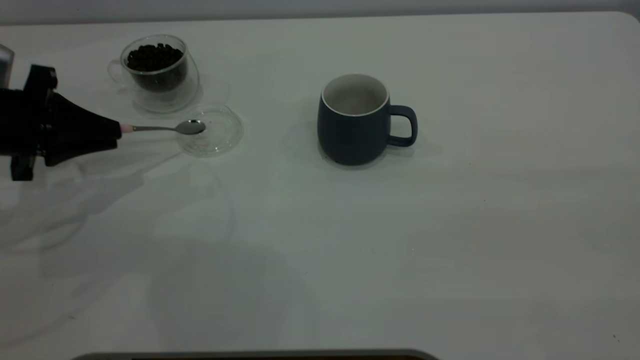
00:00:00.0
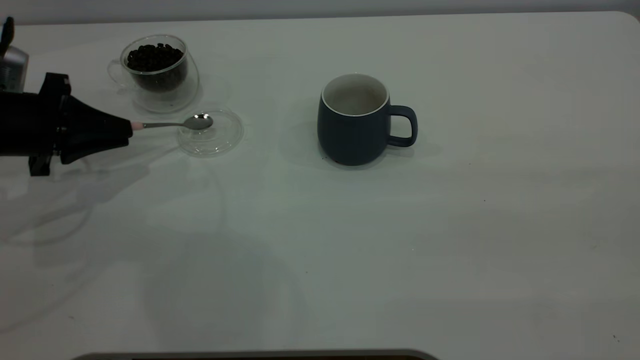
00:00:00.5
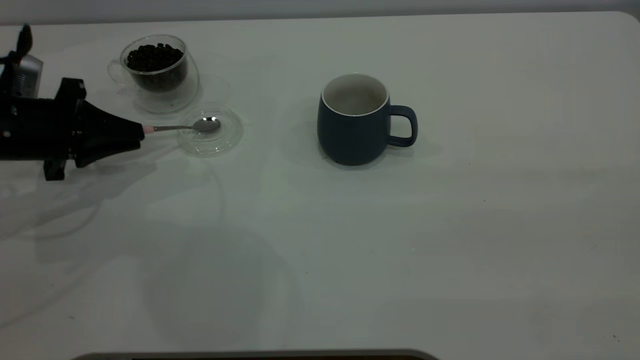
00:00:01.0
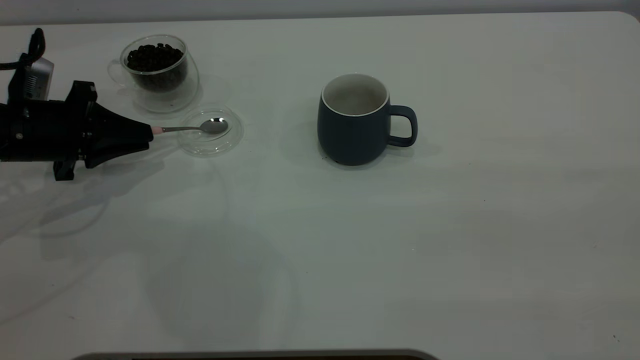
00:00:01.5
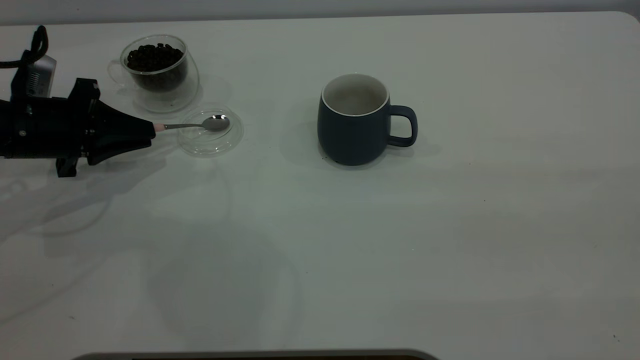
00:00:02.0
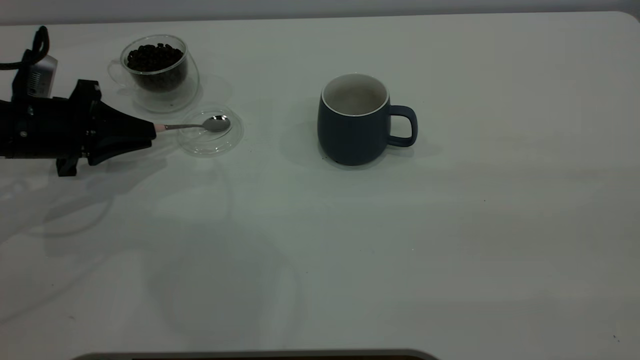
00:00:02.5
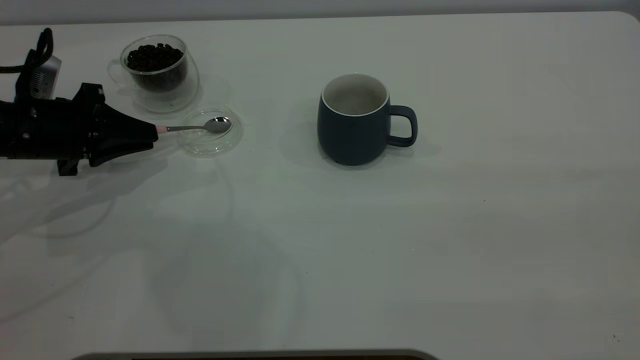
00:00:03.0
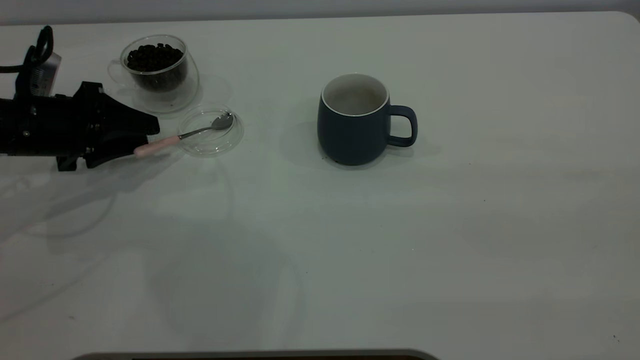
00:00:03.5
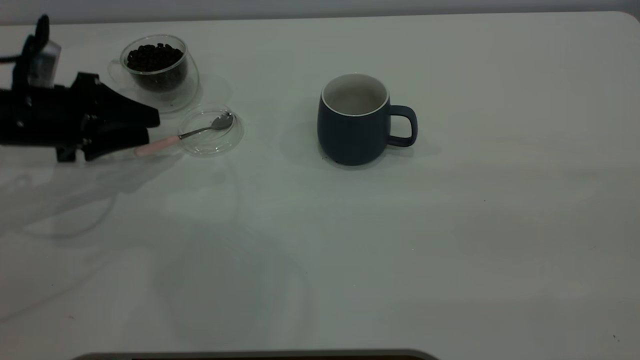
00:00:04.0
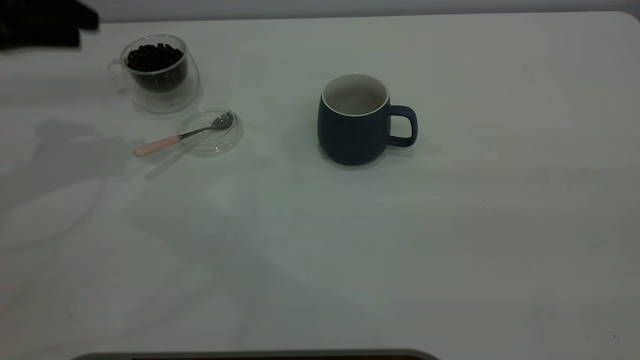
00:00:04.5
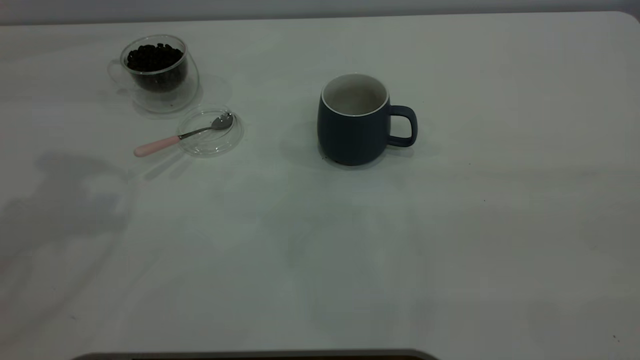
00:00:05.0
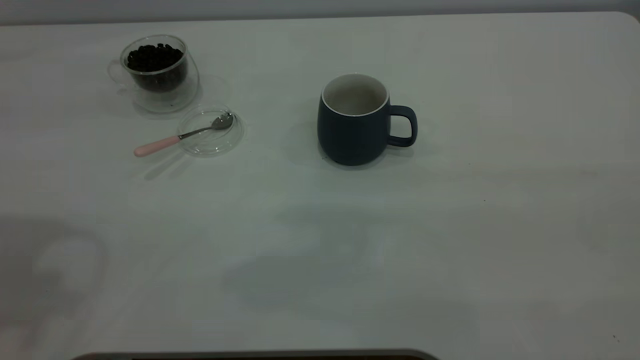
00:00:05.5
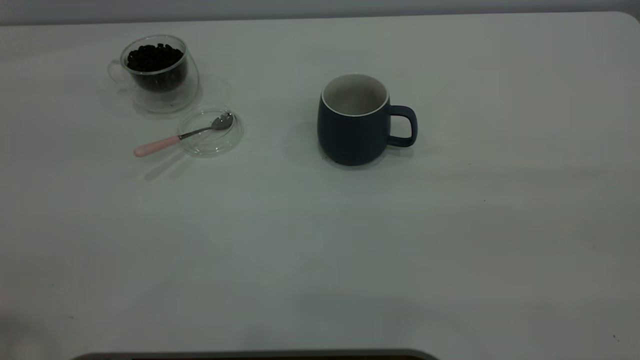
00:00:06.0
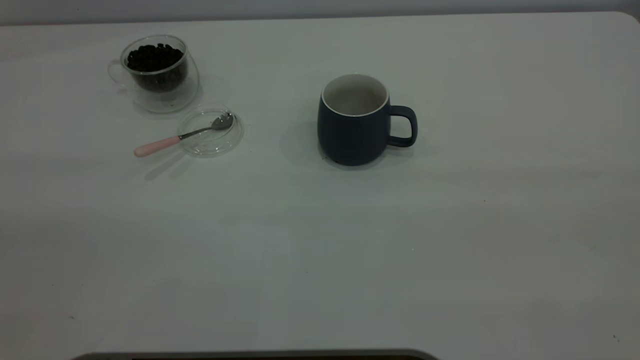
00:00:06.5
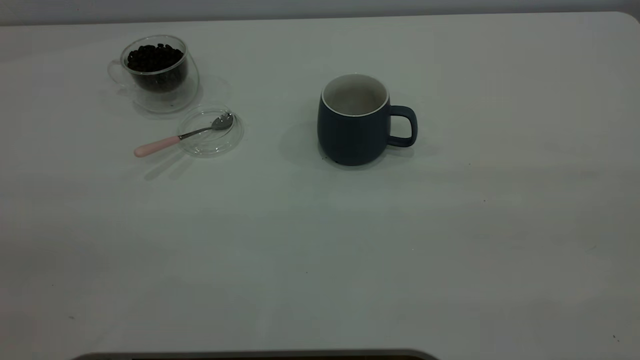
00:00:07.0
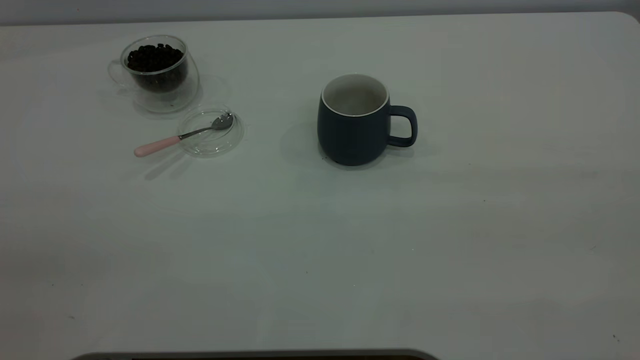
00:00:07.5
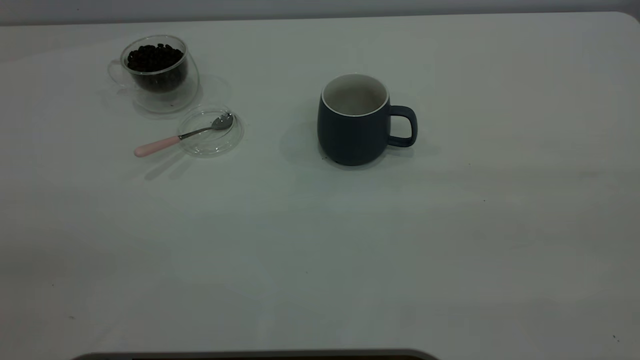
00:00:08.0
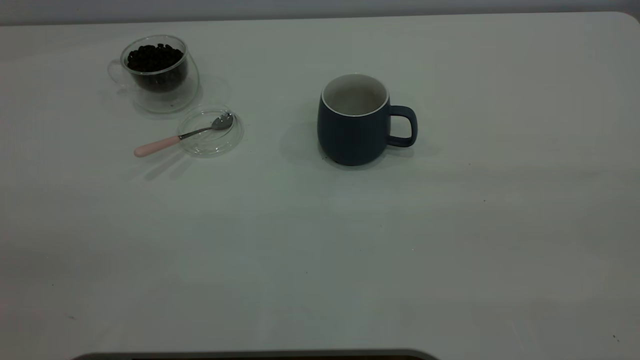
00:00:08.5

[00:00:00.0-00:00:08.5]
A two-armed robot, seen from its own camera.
Task of the whole recording: the right gripper place the grey cup in the center of the table, the left gripper take the pink spoon from the cup lid and scoop out the coffee beans from the coffee cup and put them into the grey cup, the left gripper put the spoon back into the cup lid.
Step, 00:00:00.0 to 00:00:04.0: Place the spoon back in its original place.
00:00:00.0 to 00:00:02.0: The grippers make only small movements.
00:00:02.0 to 00:00:04.0: The left gripper opens.
00:00:04.0 to 00:00:06.5: The left gripper heads backward and upward, covering about 40 cm.
